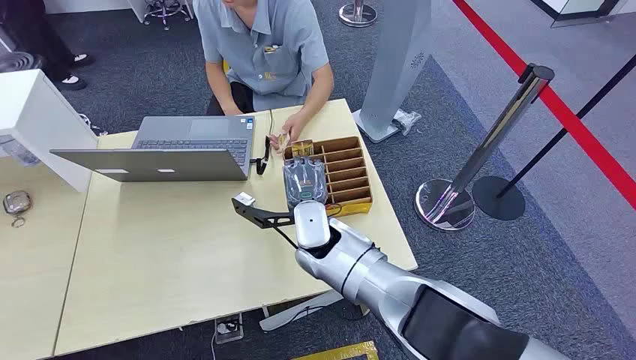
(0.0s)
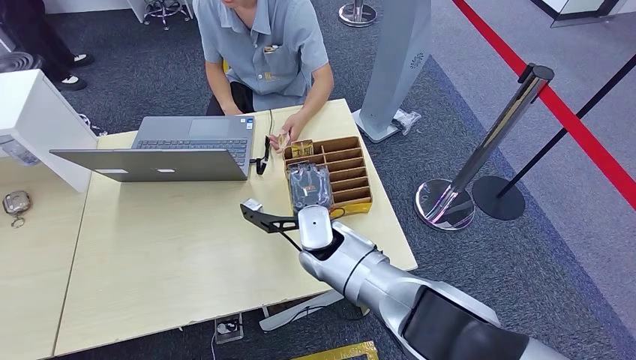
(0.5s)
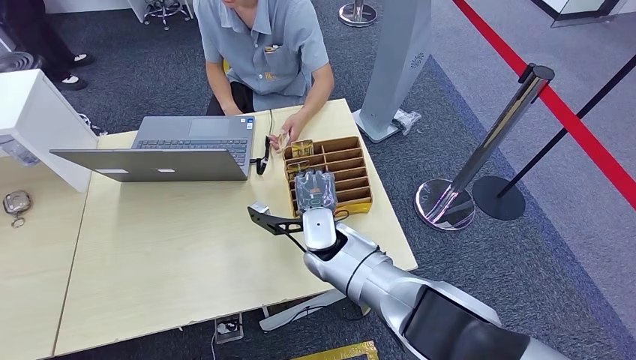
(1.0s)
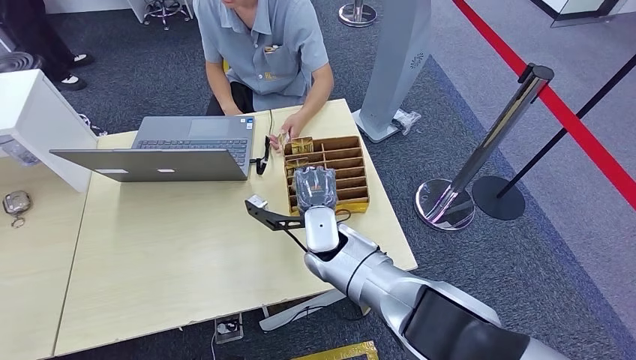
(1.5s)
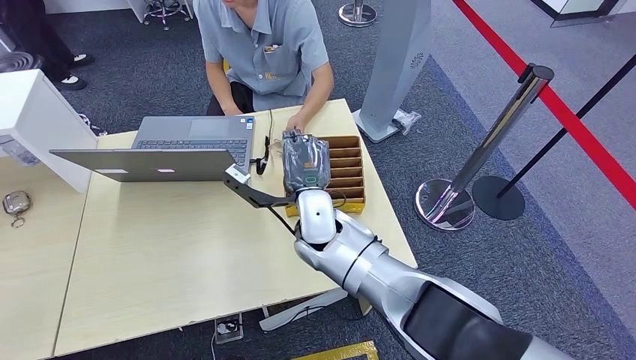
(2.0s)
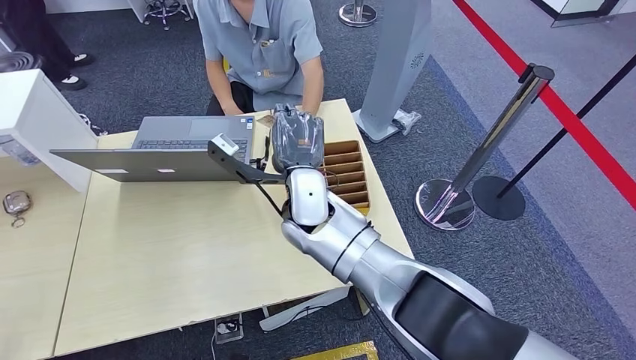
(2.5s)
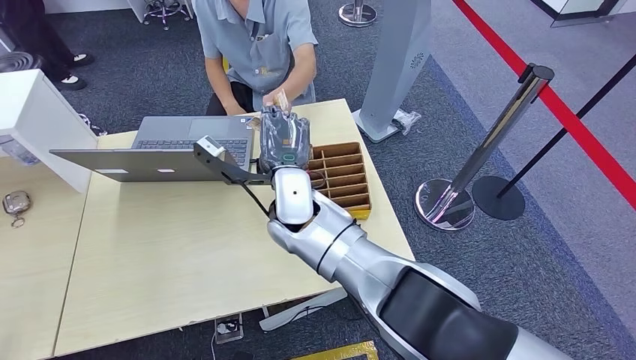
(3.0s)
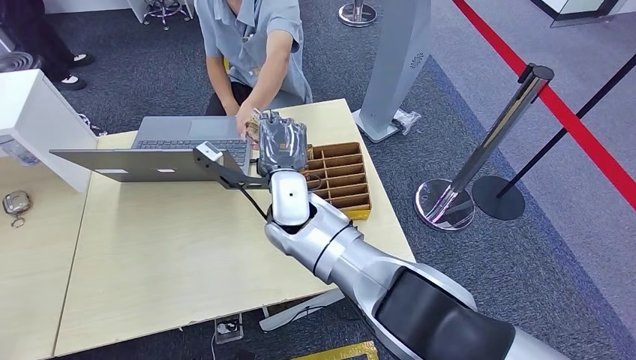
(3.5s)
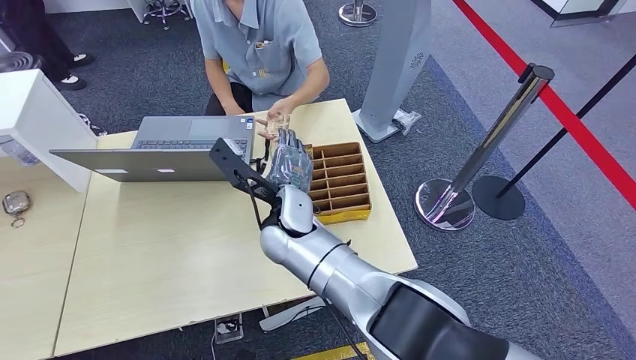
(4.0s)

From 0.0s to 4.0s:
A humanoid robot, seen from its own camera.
Step, from 0.0s to 2.0s: Pick up the room card from the card holder.
Step, from 3.5s to 4.0s: Hand the room card to the target.
From 2.0s to 4.0s: The right hand ends up about 5 cm from where it was.
